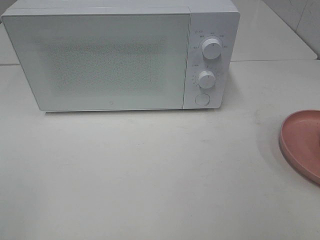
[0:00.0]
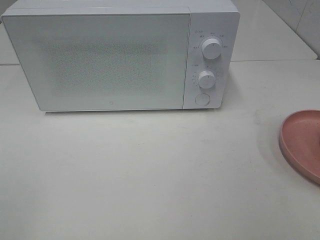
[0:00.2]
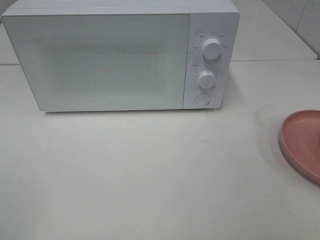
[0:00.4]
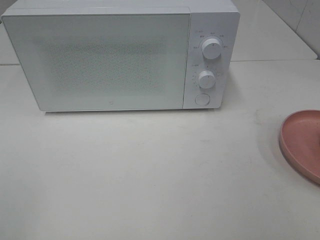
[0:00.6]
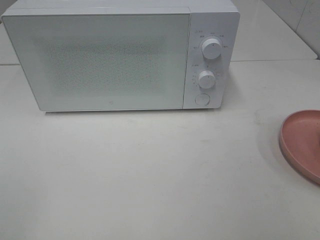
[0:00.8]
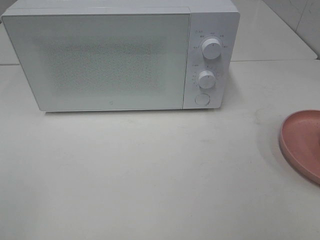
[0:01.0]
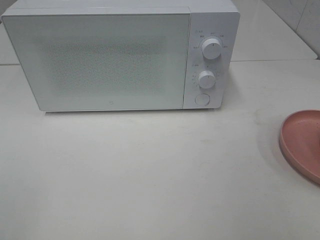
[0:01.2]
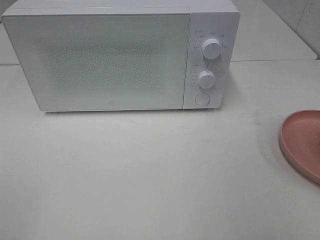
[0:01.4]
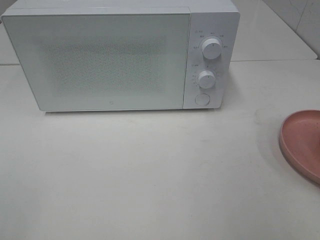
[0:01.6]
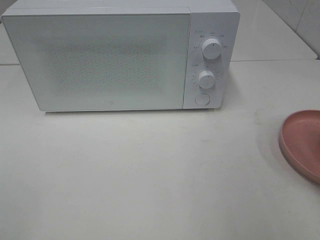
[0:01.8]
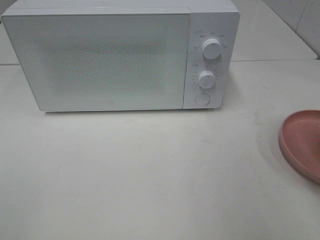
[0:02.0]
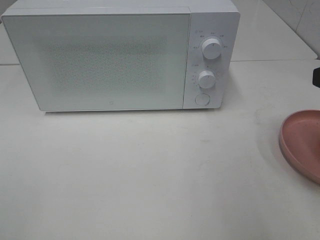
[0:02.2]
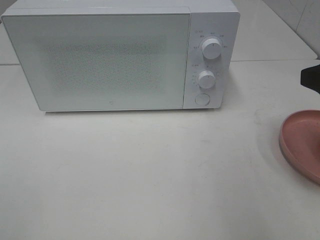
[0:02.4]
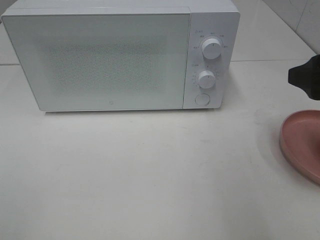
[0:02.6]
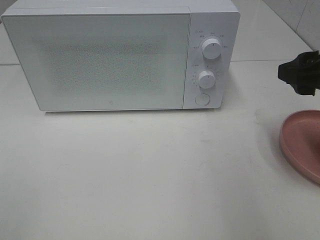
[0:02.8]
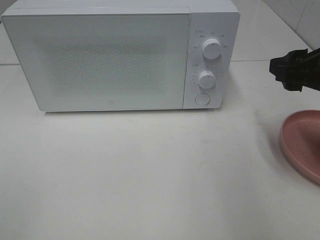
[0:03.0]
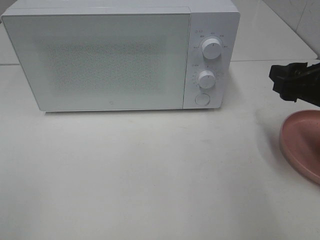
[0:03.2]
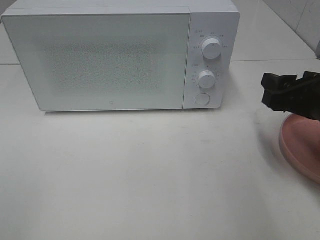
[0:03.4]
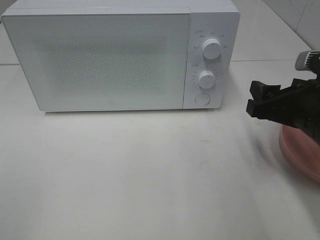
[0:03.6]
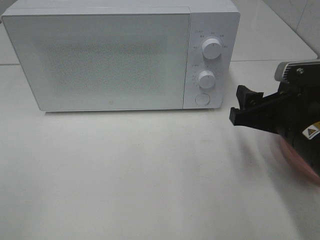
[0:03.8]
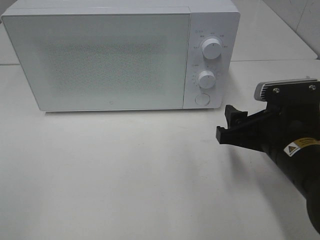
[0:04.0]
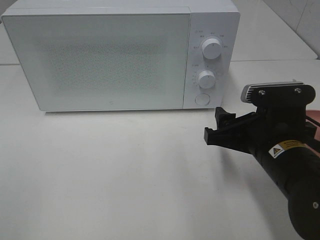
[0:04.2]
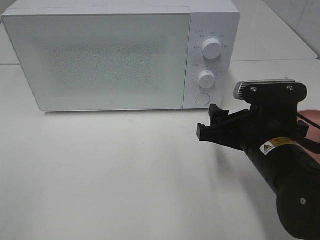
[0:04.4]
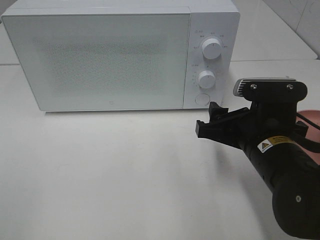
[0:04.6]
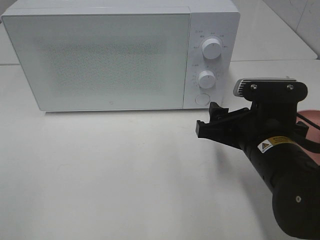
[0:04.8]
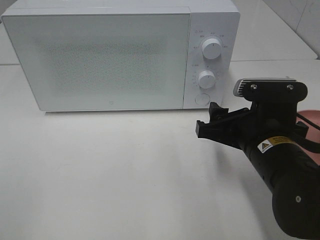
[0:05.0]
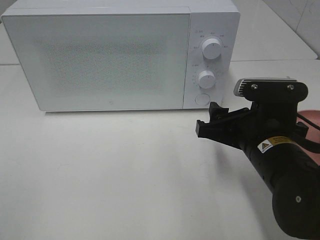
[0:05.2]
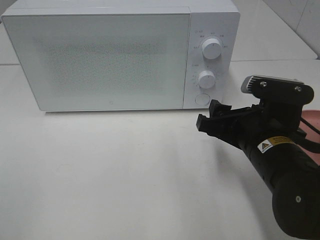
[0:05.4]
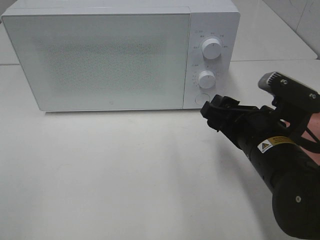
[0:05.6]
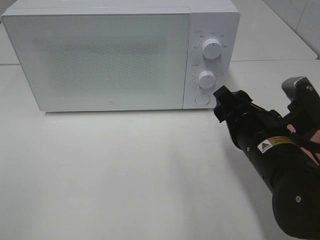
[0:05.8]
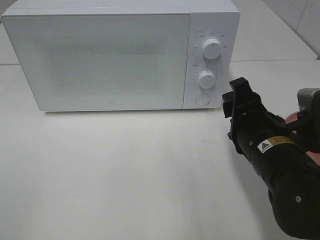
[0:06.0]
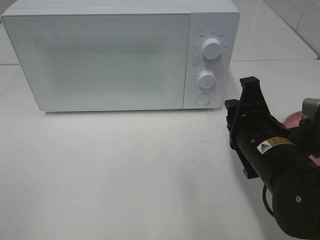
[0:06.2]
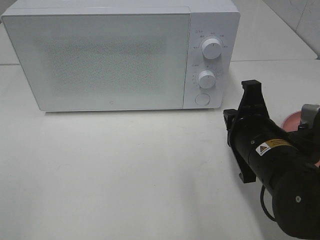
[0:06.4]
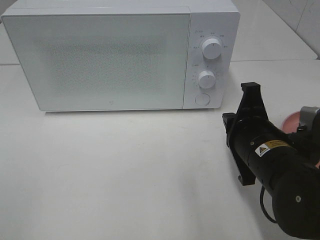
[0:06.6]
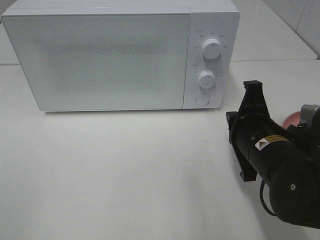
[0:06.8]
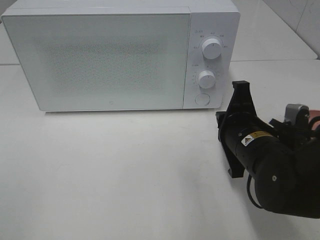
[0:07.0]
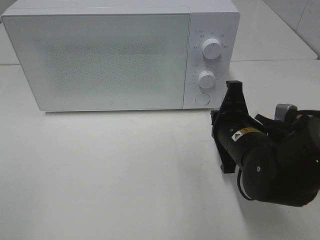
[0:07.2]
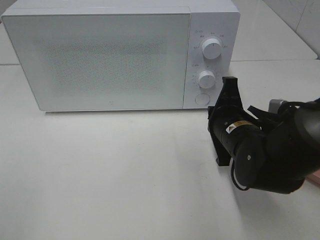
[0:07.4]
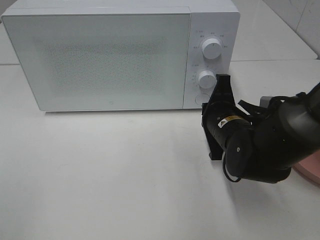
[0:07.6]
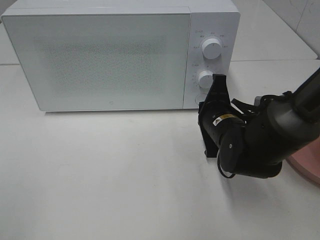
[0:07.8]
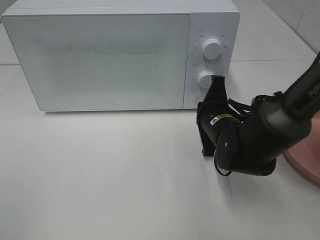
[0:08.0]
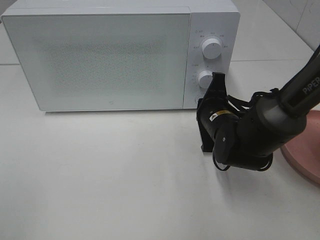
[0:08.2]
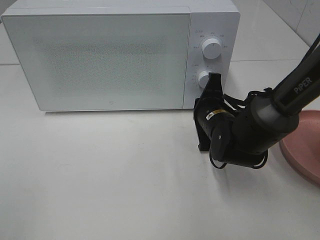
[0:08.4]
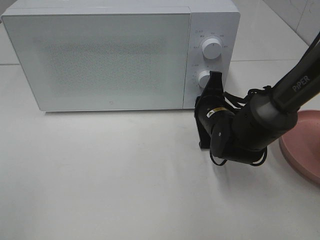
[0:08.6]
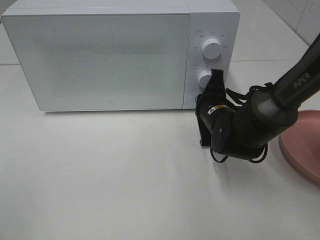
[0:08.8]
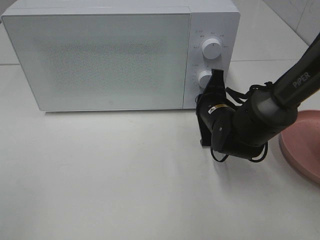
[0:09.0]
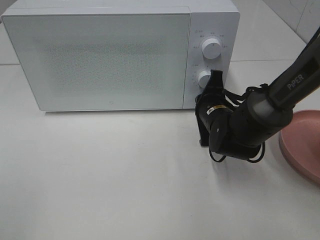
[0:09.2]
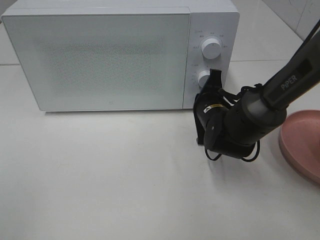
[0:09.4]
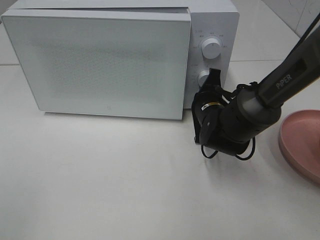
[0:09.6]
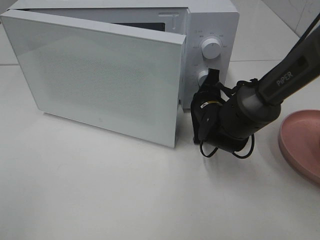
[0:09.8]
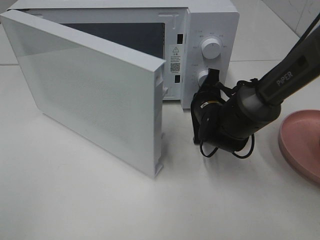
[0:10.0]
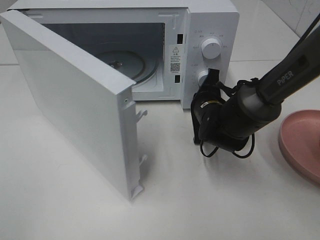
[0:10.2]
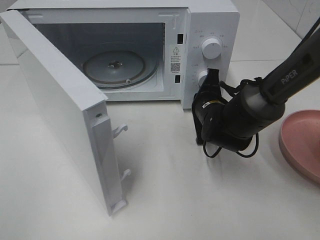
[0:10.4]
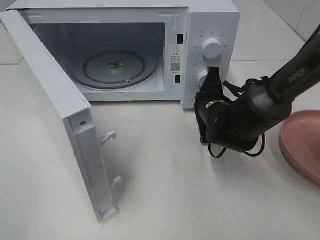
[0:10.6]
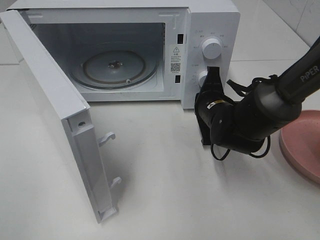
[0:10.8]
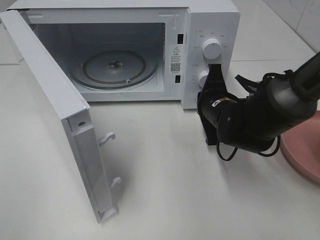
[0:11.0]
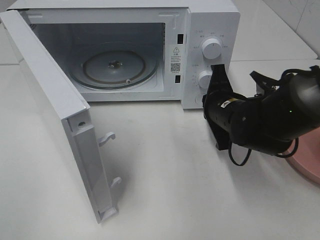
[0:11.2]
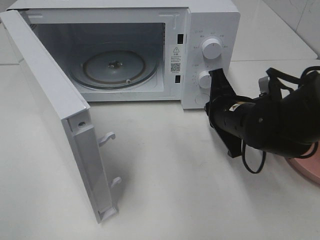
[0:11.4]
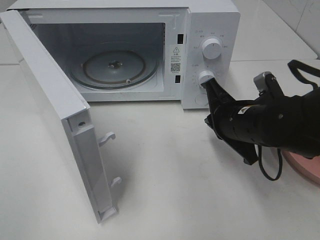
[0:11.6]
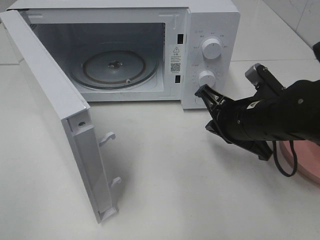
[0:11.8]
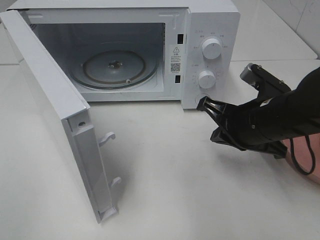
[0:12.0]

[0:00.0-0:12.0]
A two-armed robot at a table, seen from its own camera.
Task of the whole recording: Heat the burger.
Step, 0:00.0 to 0:11.4: Right hand: press the switch.
0:01.6 to 0:03.0: The right gripper travels forward by some 15 cm.
0:03.0 to 0:04.4: The right gripper shifts about 15 cm to the left and downward.
0:06.0 to 0:07.6: The right gripper shifts roughly 10 cm forward, and closes up.
0:07.6 to 0:09.0: The right gripper travels forward by about 5 cm.
0:10.4 to 0:12.0: The right gripper is displaced backward and upward by roughly 15 cm.

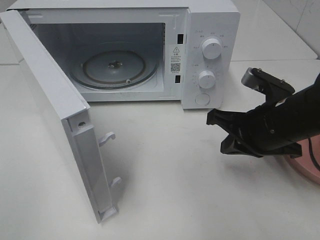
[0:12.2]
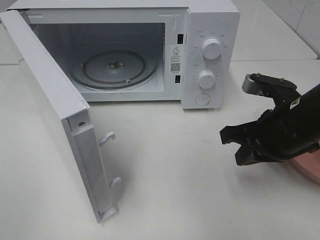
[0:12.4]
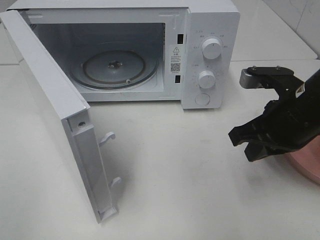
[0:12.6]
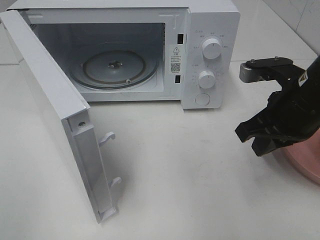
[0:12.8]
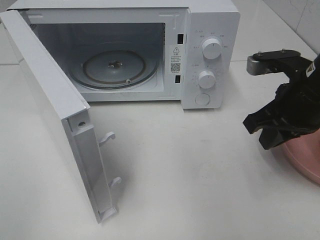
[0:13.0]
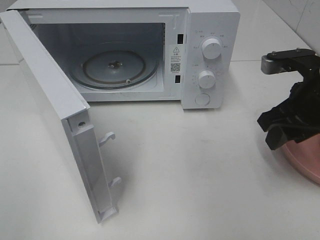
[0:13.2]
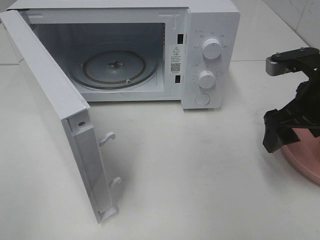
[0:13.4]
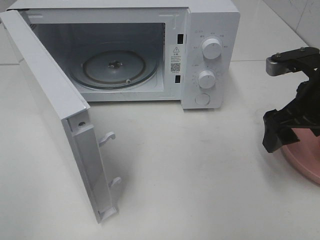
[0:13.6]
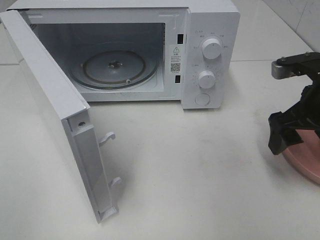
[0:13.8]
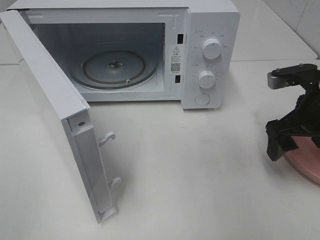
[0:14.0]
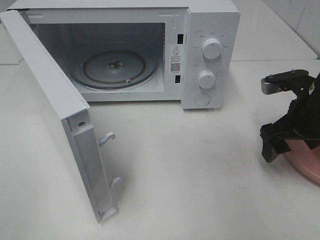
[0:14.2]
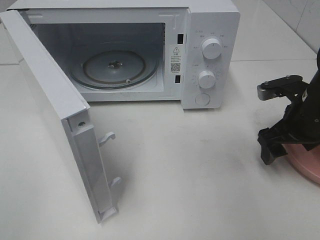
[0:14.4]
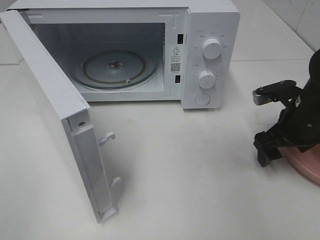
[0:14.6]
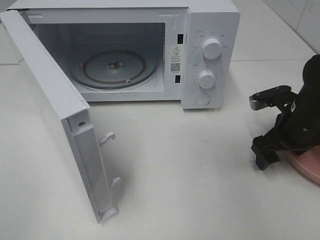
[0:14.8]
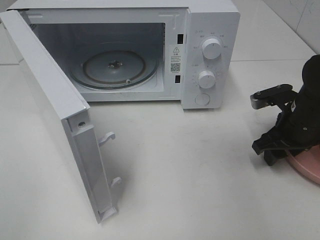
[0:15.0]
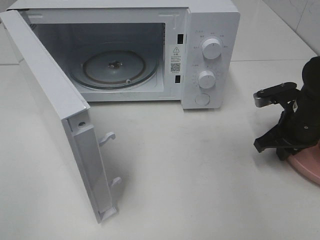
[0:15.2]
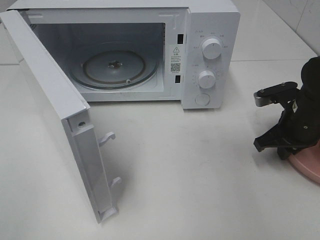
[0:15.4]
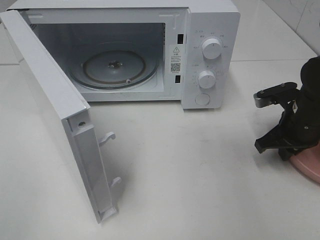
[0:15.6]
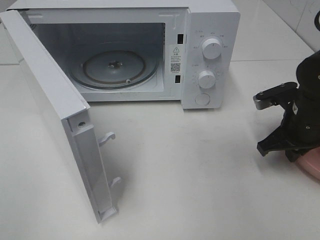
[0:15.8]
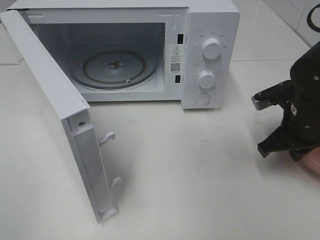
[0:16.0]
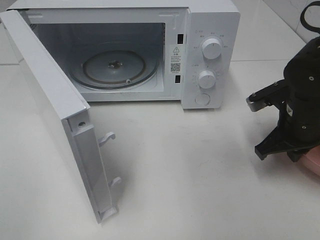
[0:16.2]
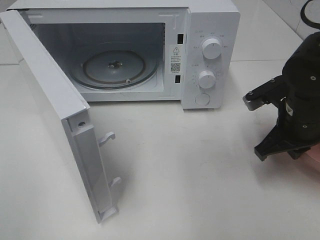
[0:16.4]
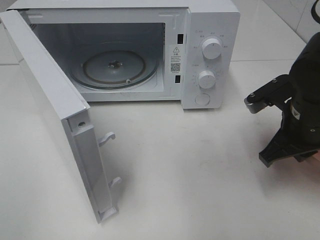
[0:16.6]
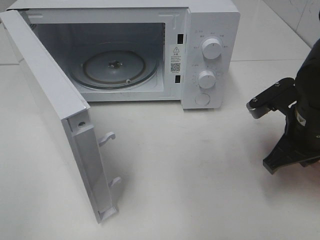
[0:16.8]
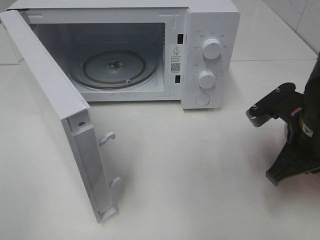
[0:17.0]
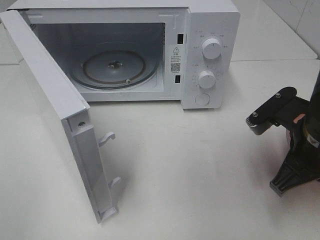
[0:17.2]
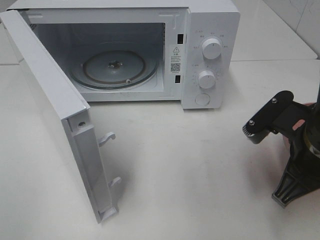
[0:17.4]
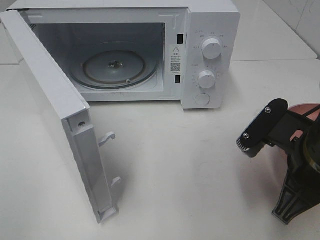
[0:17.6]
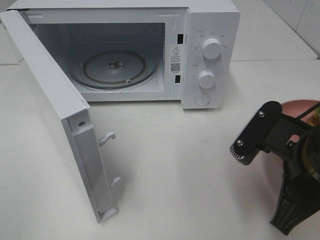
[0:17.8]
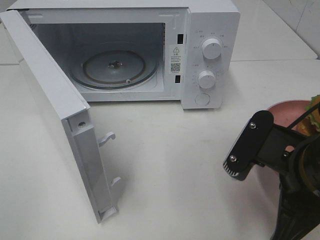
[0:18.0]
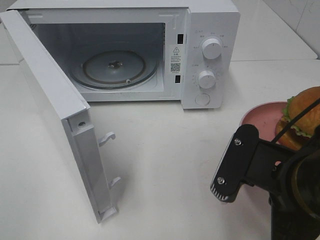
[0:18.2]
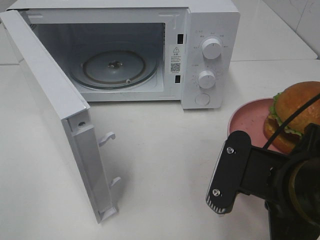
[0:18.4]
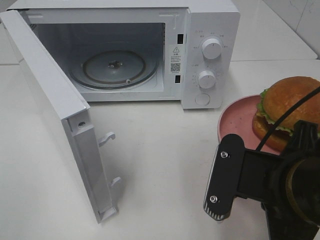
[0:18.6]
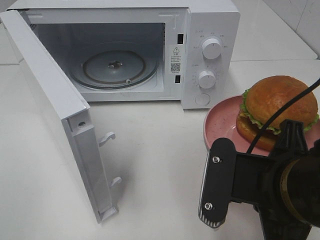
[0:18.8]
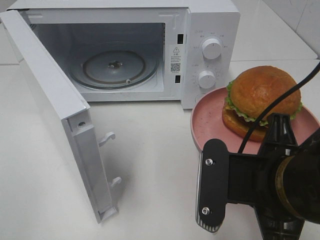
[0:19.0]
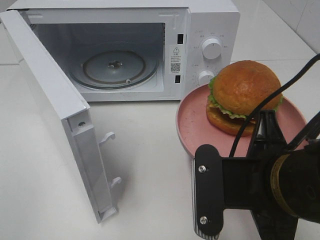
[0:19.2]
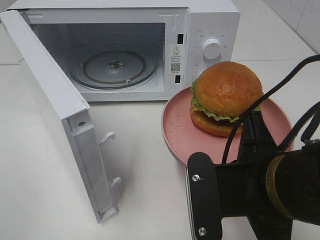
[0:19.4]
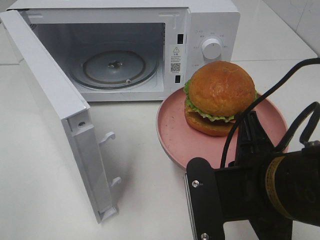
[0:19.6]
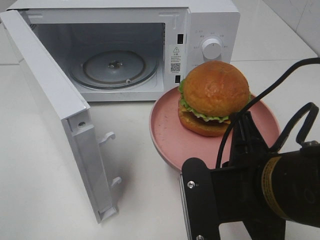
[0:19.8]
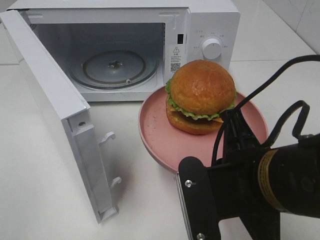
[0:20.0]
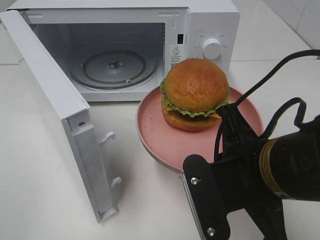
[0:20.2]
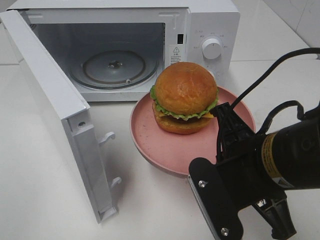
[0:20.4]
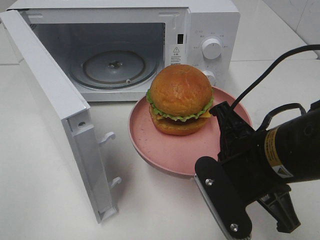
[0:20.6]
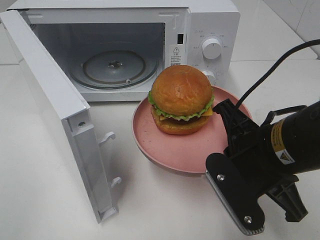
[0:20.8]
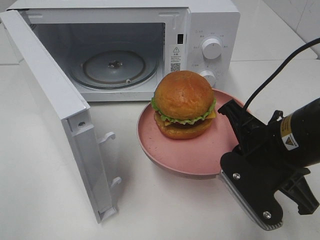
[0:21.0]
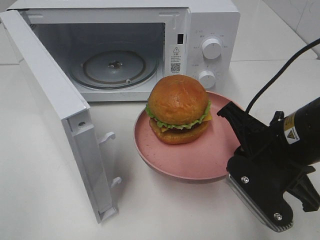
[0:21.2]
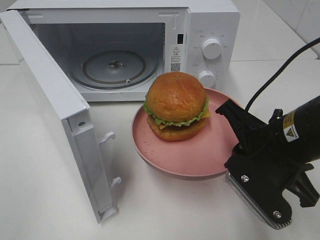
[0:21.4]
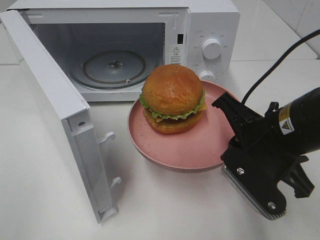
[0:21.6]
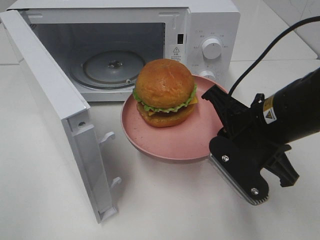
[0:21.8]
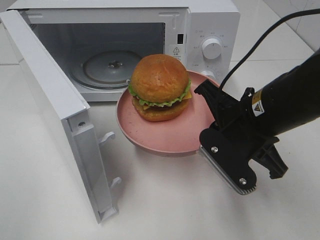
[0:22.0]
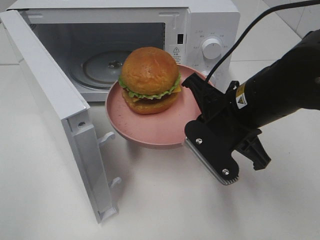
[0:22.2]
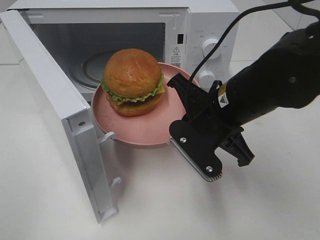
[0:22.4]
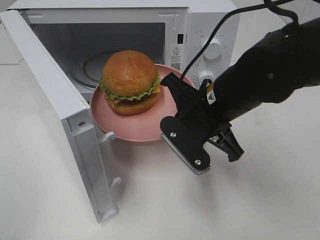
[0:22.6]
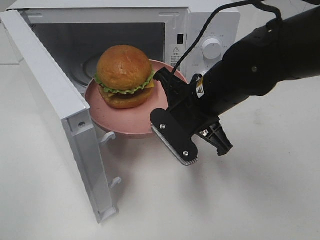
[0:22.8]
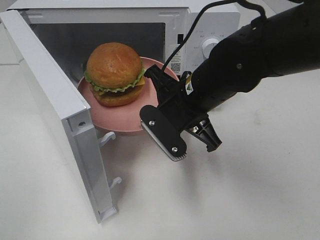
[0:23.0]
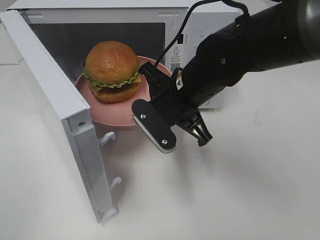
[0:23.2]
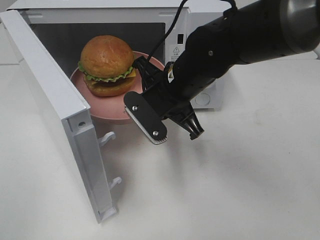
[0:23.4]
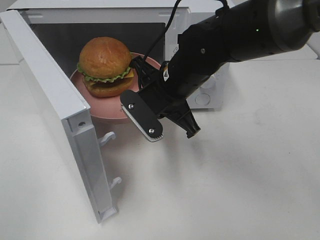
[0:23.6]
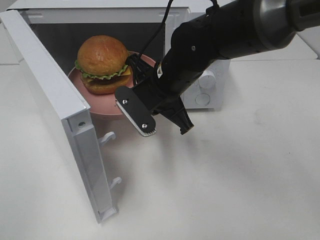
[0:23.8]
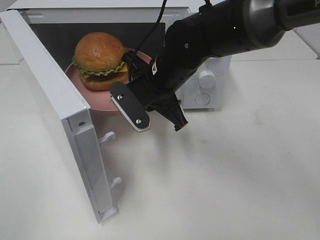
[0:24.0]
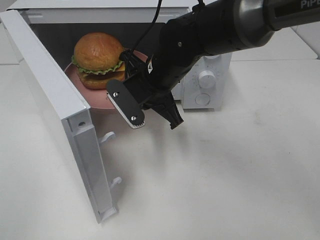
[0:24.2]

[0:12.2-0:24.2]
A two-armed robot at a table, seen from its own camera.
Task of the whole recording: Heat the burger.
Step, 0:12.2 to 0:15.6: Right hand: grab the plate with the hamburger.
0:12.2 to 0:13.8: The right gripper moves to the right, approximately 5 cm, and opens up.
0:13.8 to 0:15.2: The right gripper travels downward by some 10 cm, and closes its fingers.
0:15.2 to 0:16.6: The right gripper shifts approximately 5 cm backward.
0:16.6 to 0:18.2: The right gripper is displaced backward and to the left by about 15 cm.
0:19.8 to 0:21.2: The right gripper is displaced forward and to the right by some 10 cm.
0:21.2 to 0:22.6: The right gripper is displaced forward and to the left by some 10 cm.
0:22.6 to 0:24.2: The right gripper moves forward and to the left, approximately 10 cm.
